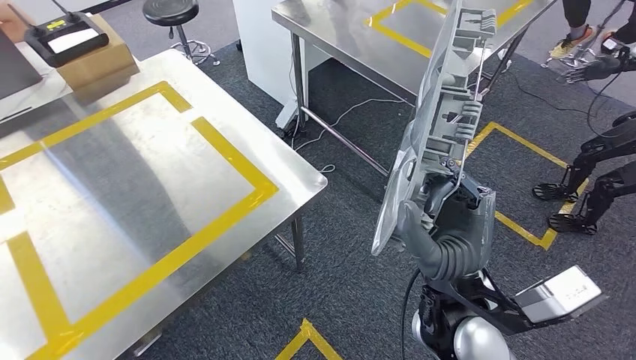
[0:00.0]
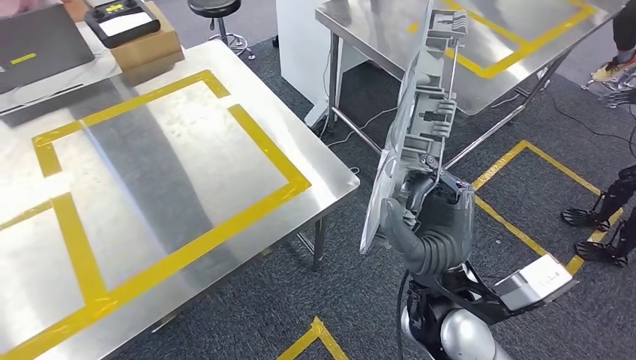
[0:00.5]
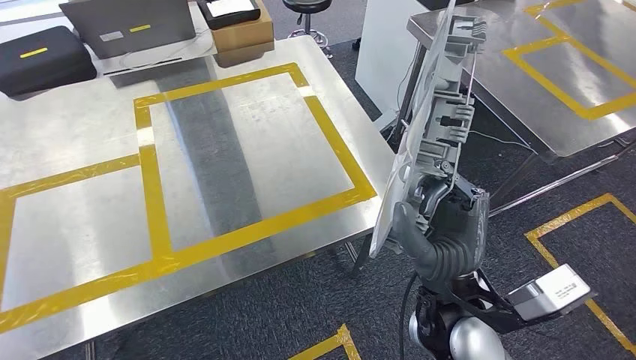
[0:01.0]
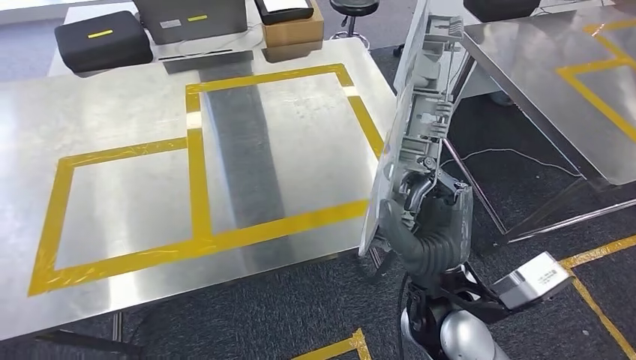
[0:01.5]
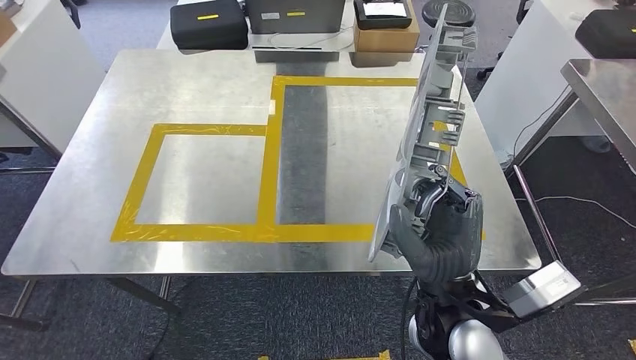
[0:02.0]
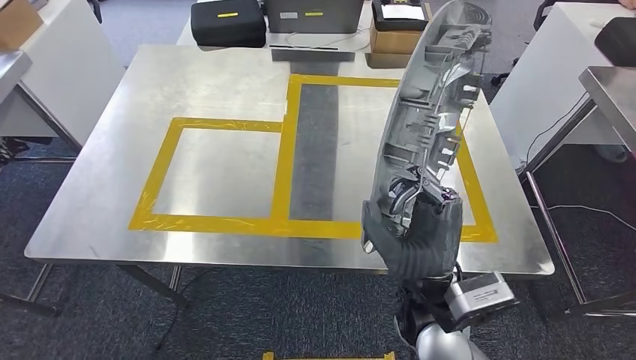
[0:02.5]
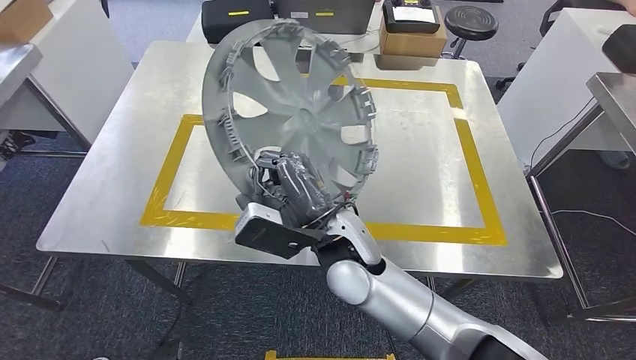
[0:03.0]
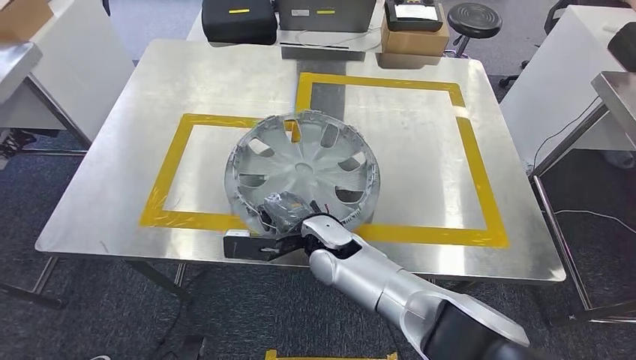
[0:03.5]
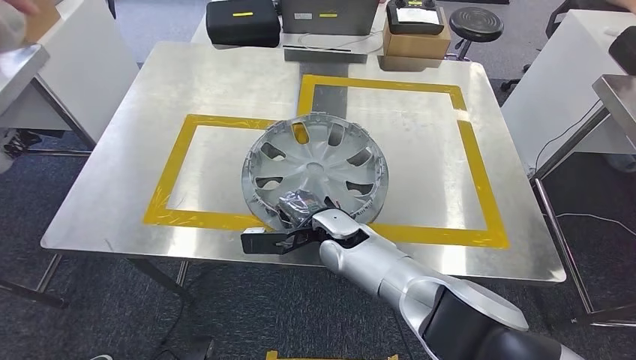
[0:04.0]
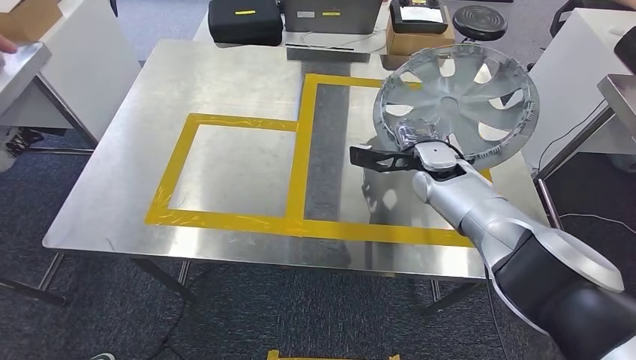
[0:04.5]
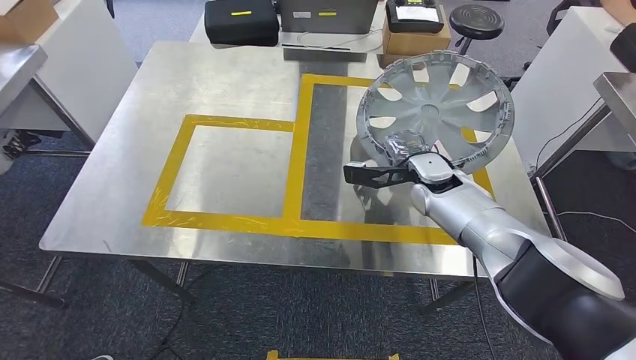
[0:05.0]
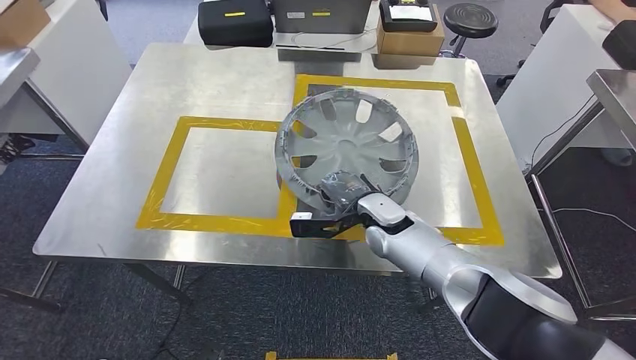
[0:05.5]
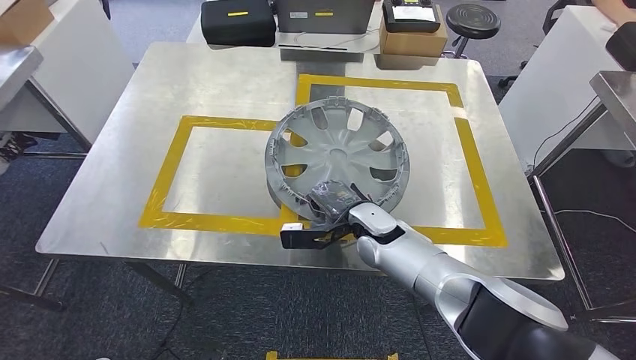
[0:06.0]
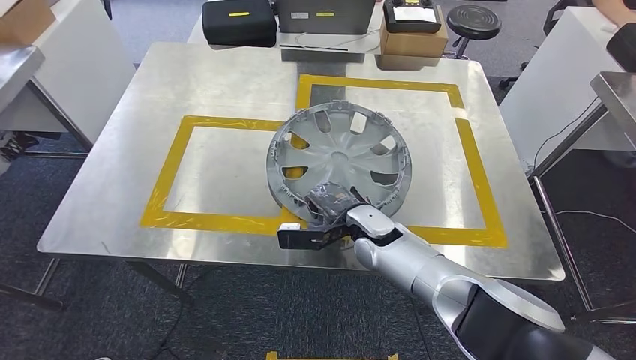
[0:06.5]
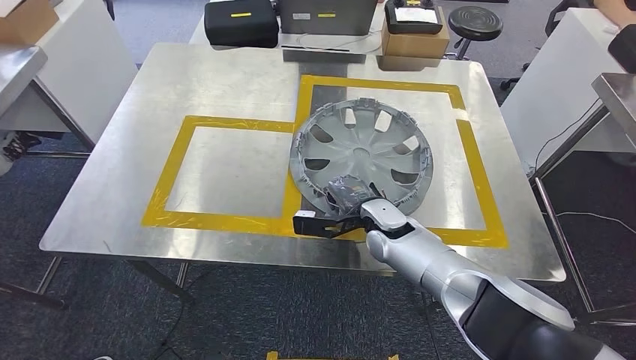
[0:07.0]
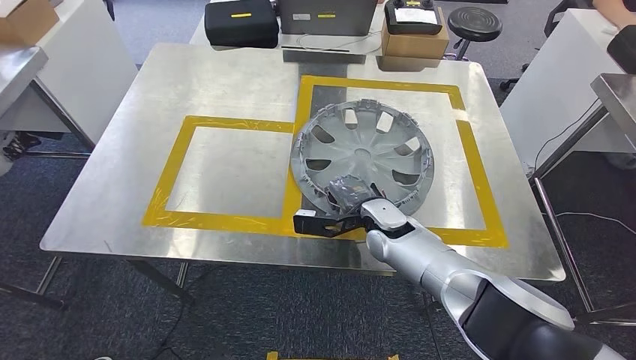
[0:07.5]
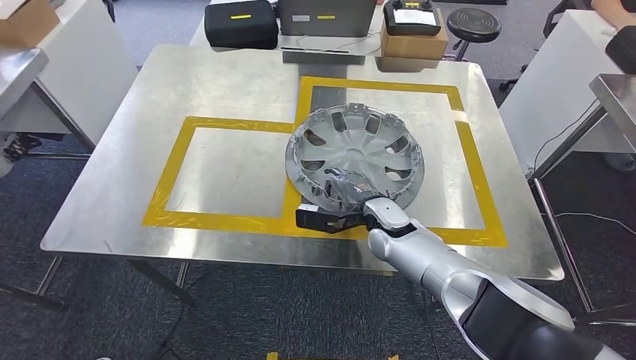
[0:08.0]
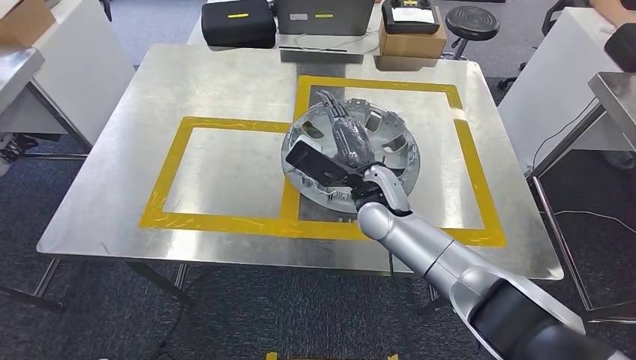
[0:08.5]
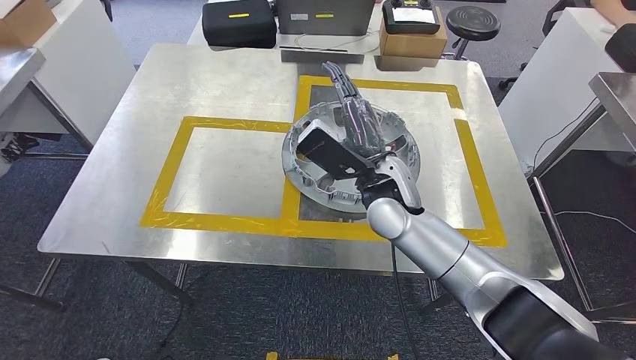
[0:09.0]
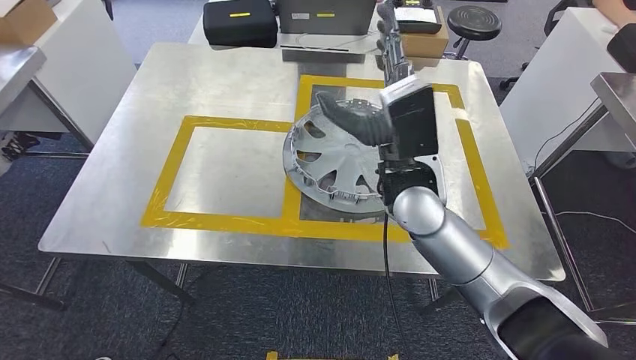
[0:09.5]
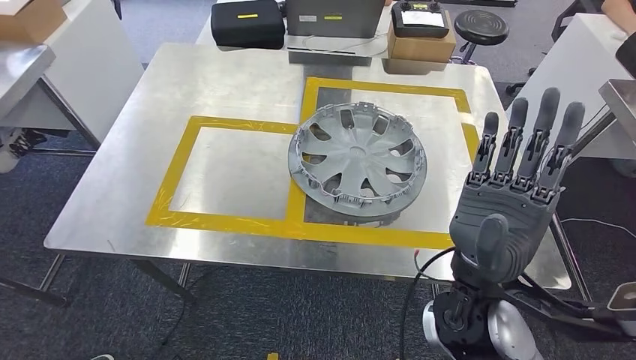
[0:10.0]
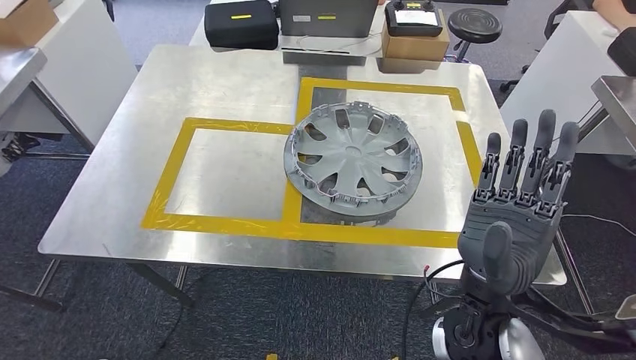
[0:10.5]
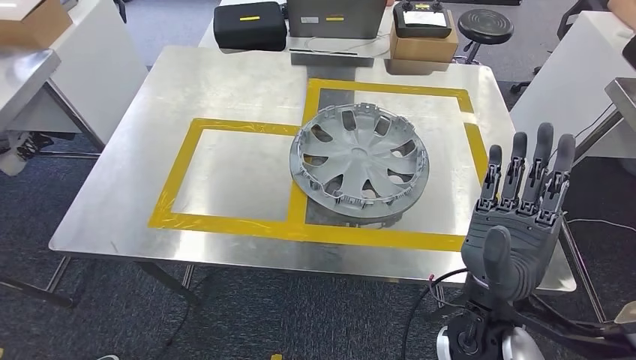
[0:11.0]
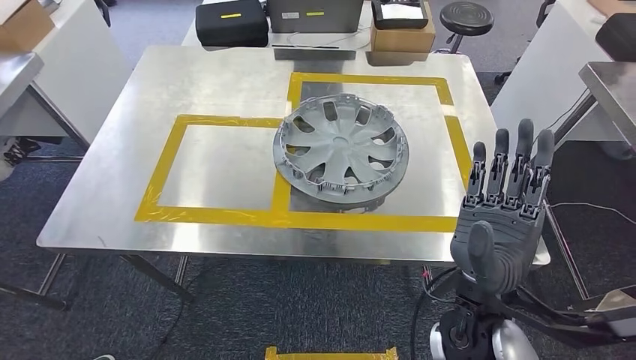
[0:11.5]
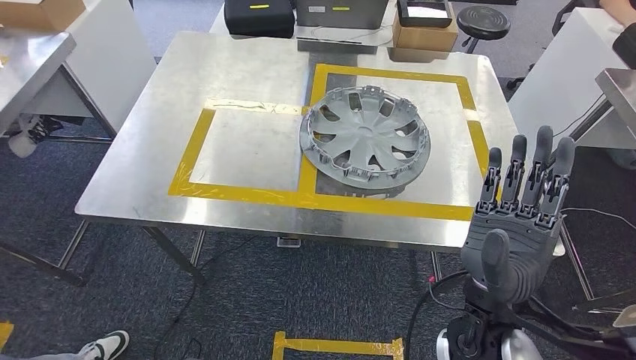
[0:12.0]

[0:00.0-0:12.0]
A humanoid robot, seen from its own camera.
Step, 0:00.0 to 0:02.0: Move the small component to the workbench.
Step, 0:02.5 to 0:10.5: Insert the small component into the corresponding slot on the workbench.
0:06.0 to 0:08.0: There are only small adjustments of the hands.

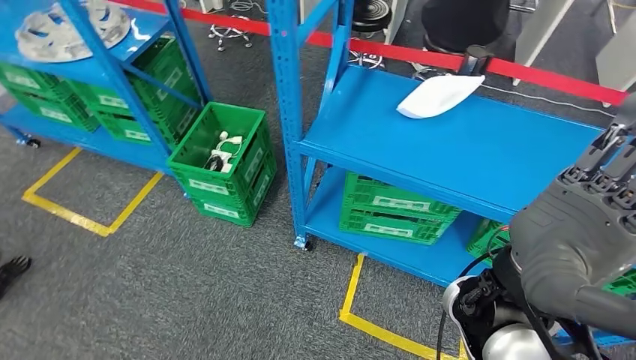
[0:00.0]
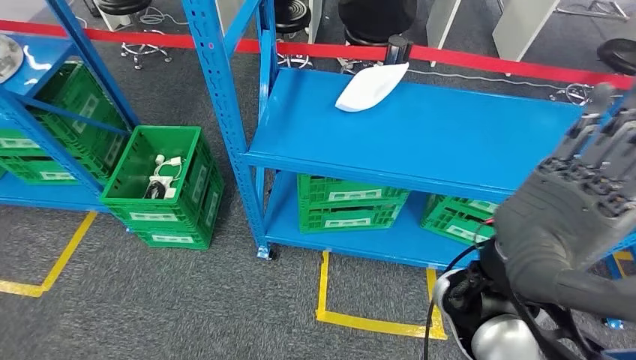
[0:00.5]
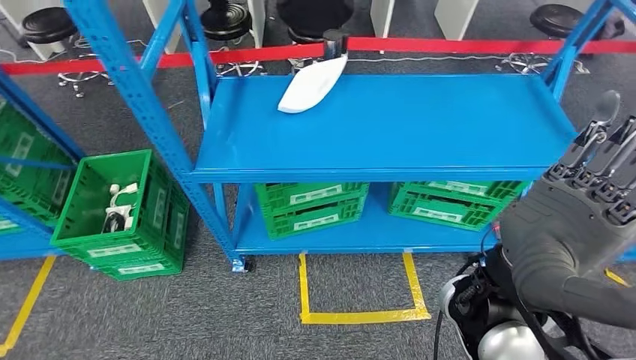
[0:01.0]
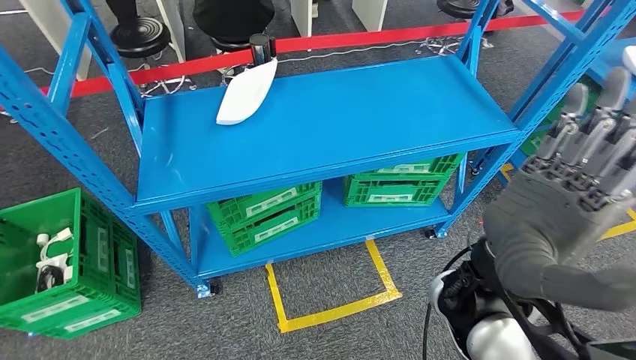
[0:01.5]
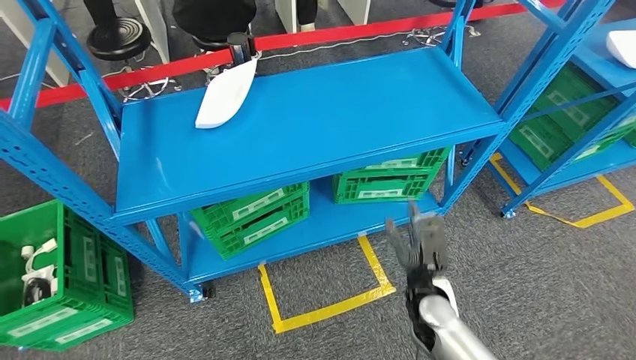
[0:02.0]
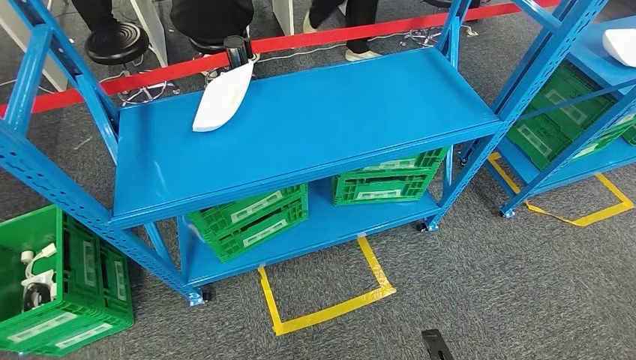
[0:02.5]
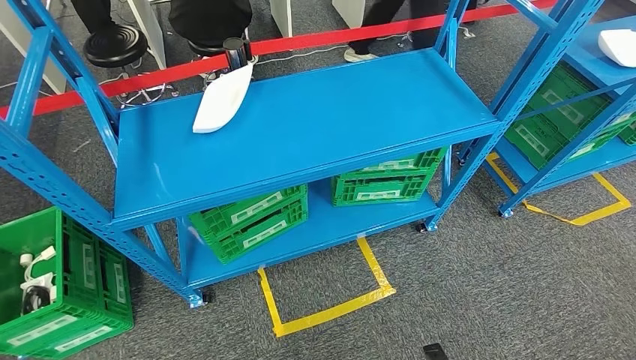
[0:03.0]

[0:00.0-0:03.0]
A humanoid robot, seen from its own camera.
Step, 0:00.0 to 0:03.0: Return to the initial position at the workbench.
